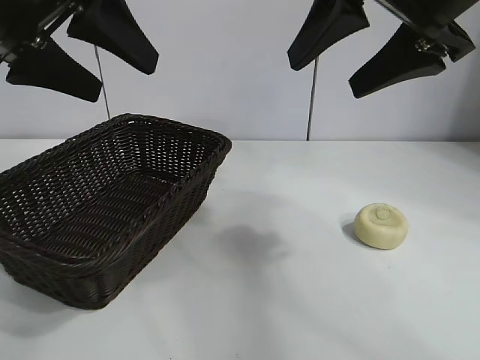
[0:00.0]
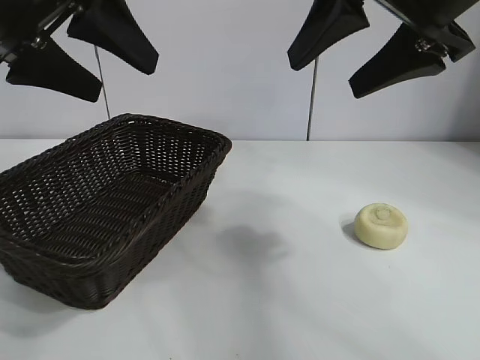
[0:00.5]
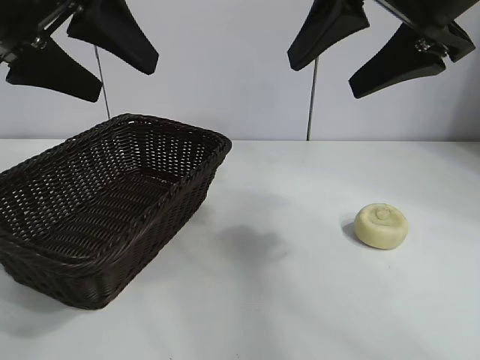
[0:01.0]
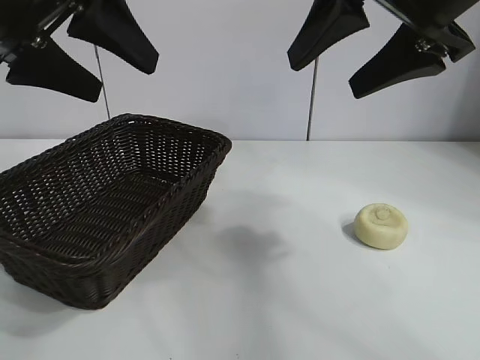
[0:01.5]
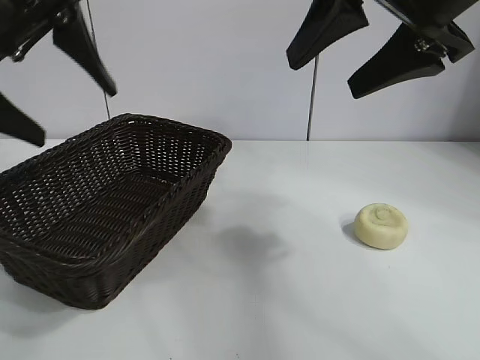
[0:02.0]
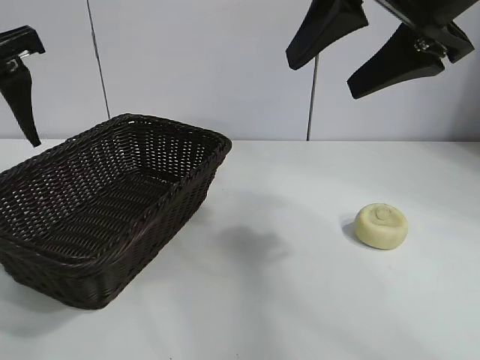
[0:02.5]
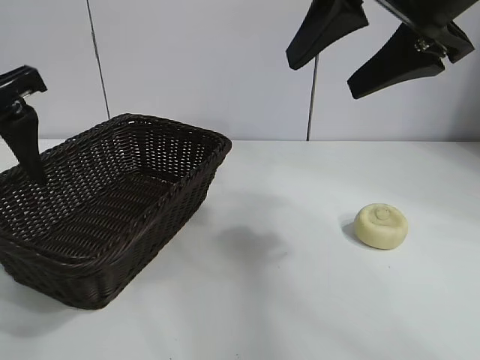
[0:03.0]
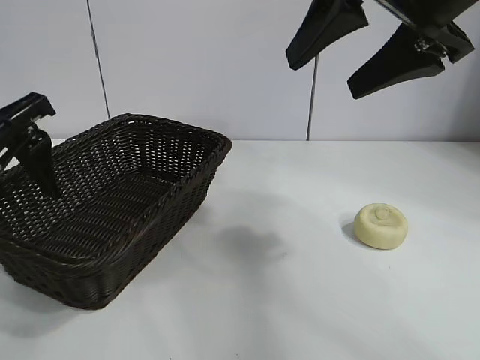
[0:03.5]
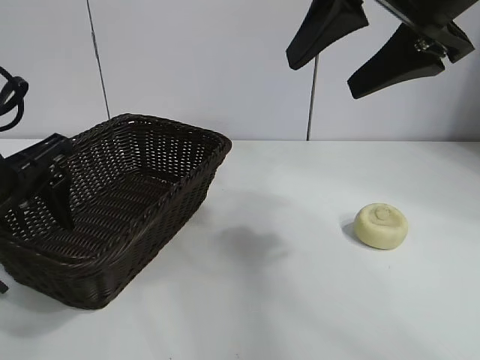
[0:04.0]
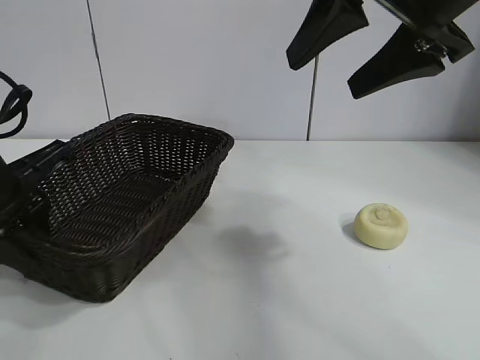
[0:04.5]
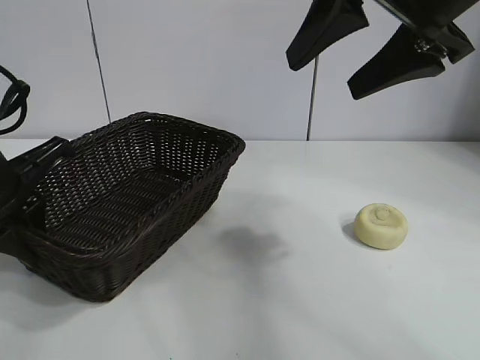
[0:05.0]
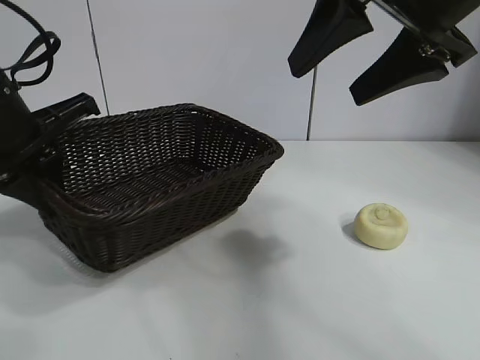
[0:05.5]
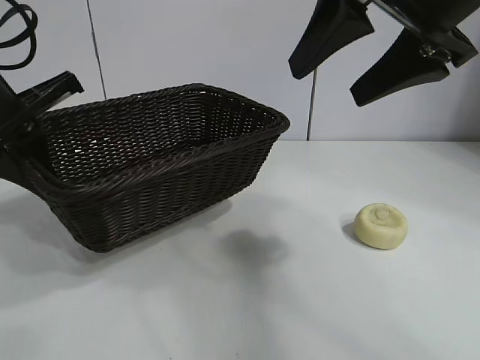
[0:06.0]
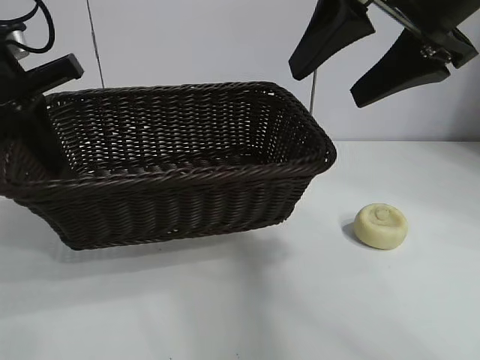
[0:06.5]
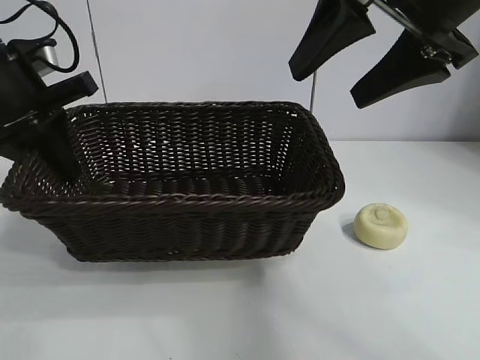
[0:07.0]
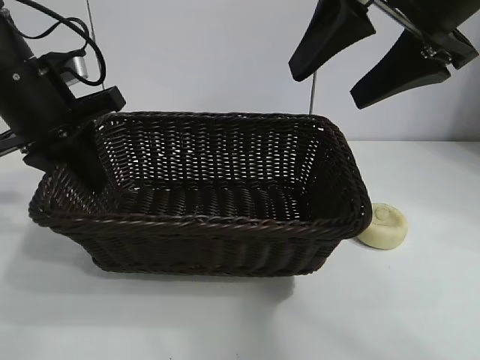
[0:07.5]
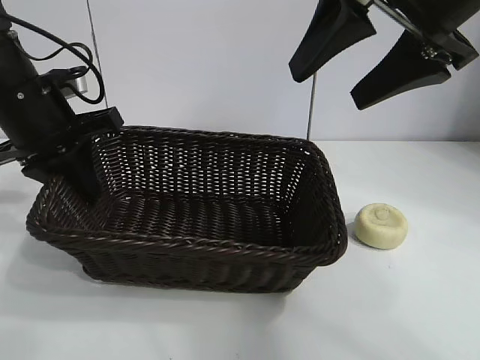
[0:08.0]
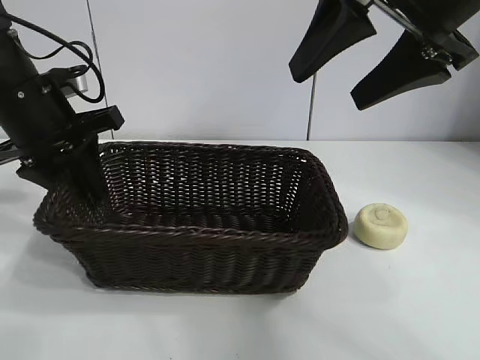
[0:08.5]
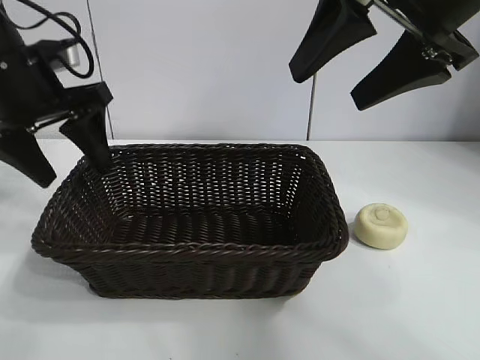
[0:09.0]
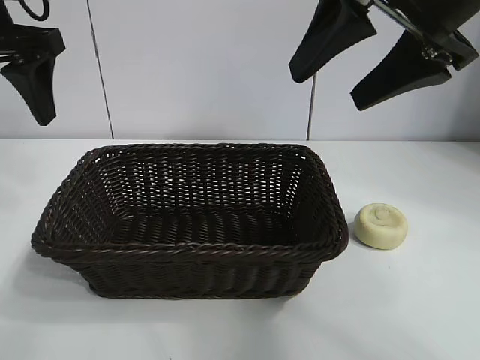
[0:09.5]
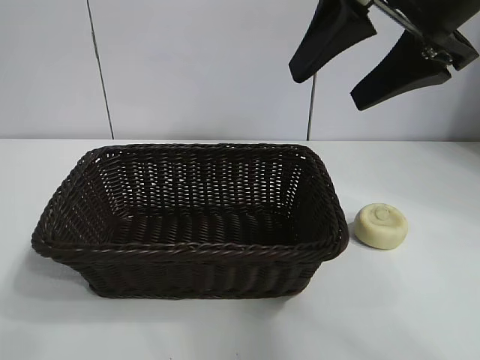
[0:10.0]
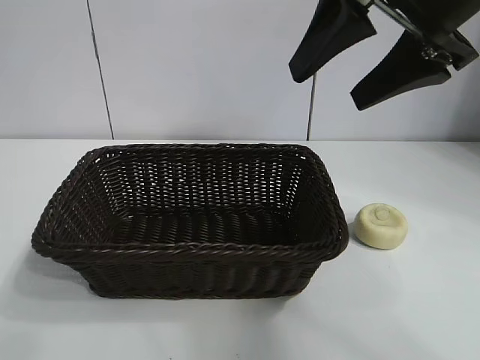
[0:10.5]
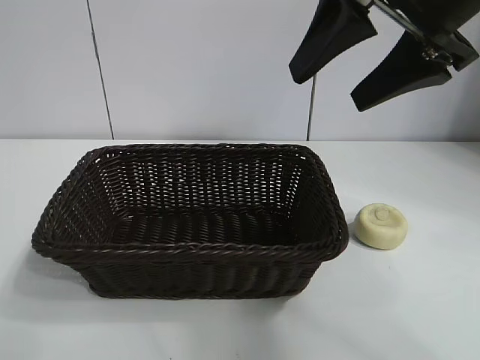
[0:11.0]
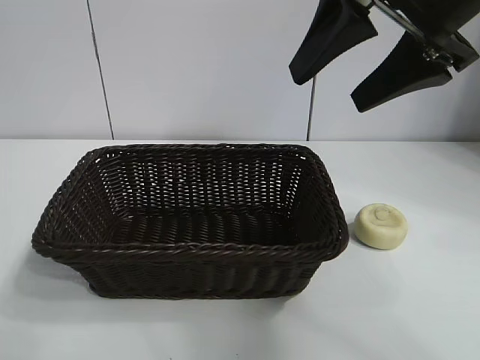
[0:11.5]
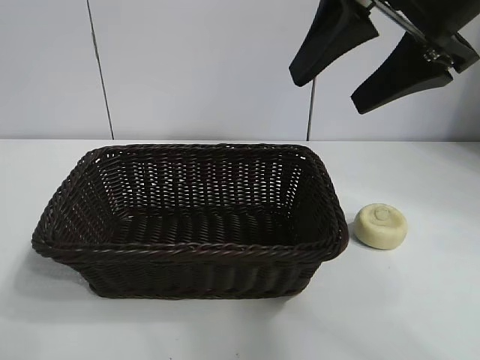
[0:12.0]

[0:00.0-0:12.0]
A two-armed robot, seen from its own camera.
Task of the whole recording: pick up the egg yolk pastry and put it into the basket.
Step, 0:02.0 to 0:04.5: Grasp the basket with left gripper.
Step, 0:05.0 to 0:08.5: Place the basket in the center of view with left gripper.

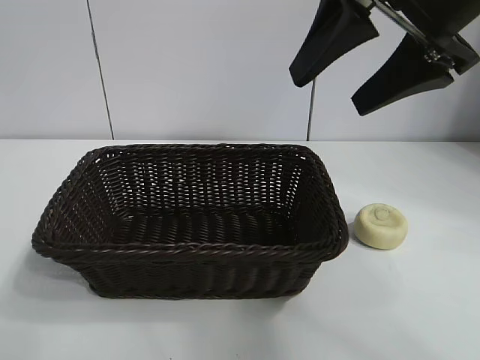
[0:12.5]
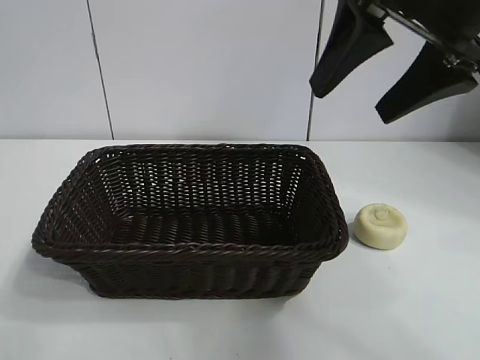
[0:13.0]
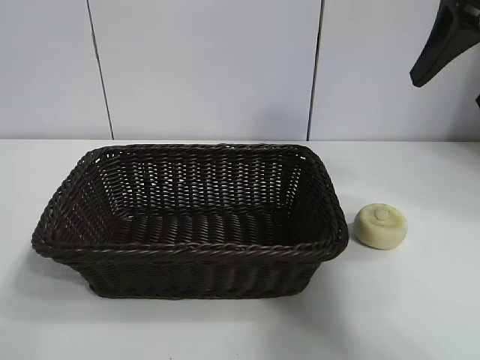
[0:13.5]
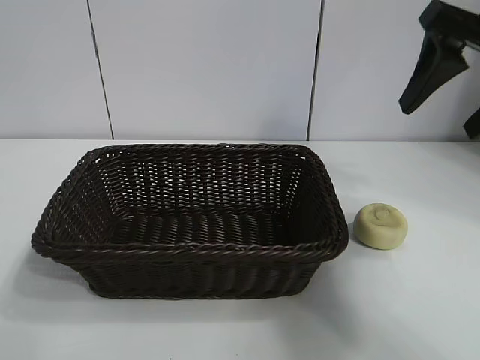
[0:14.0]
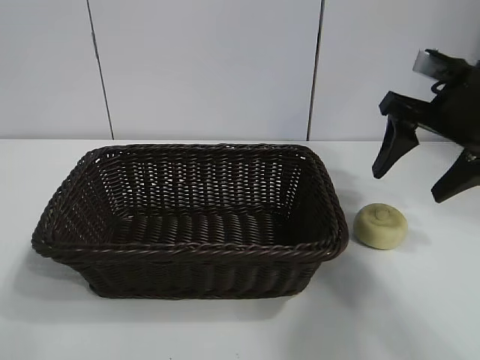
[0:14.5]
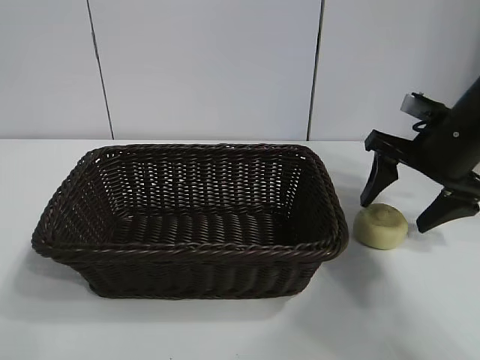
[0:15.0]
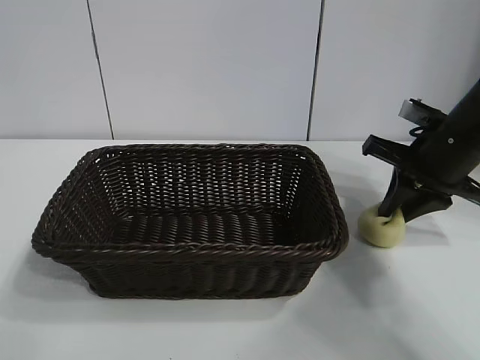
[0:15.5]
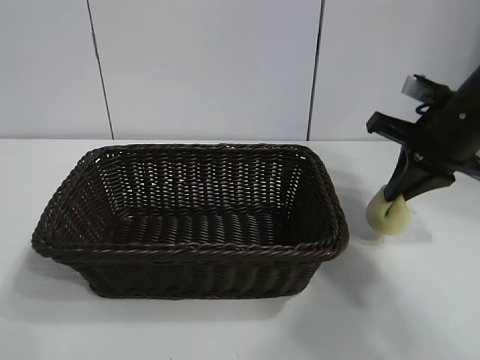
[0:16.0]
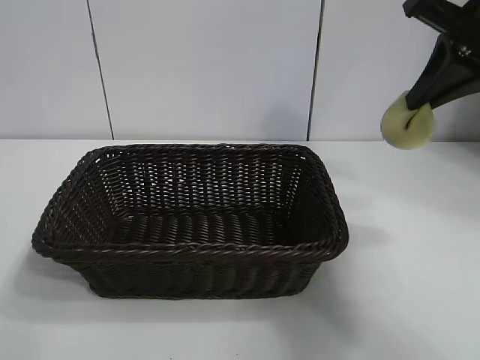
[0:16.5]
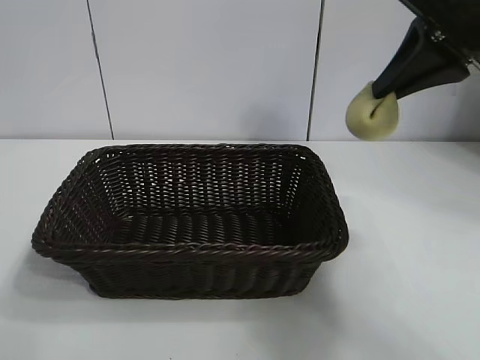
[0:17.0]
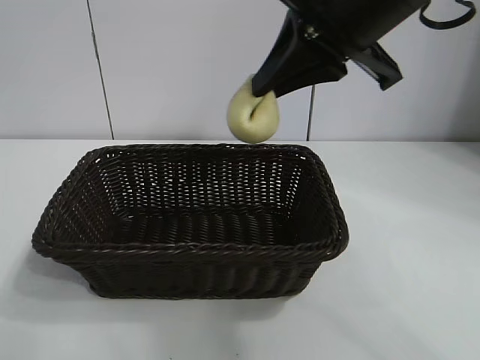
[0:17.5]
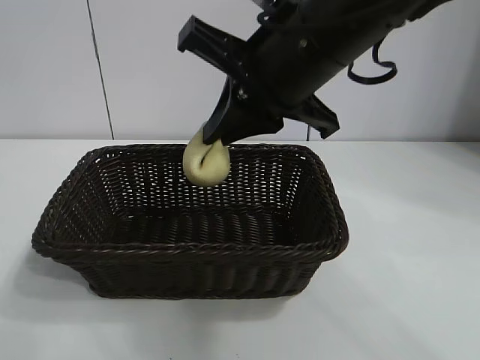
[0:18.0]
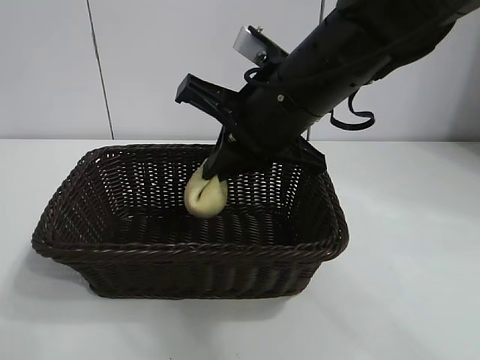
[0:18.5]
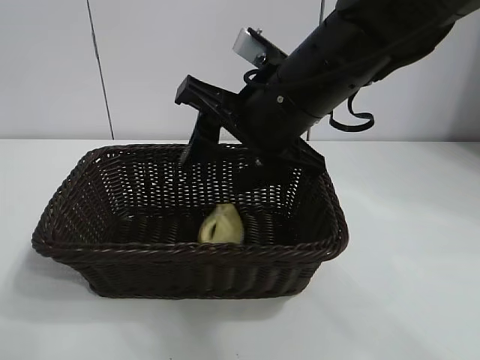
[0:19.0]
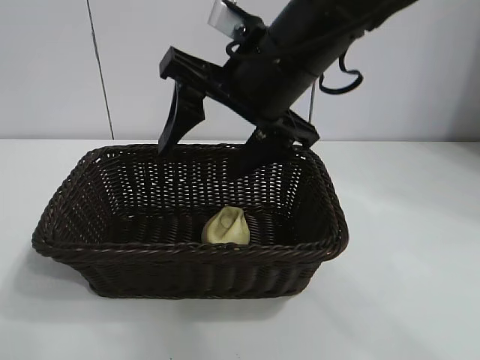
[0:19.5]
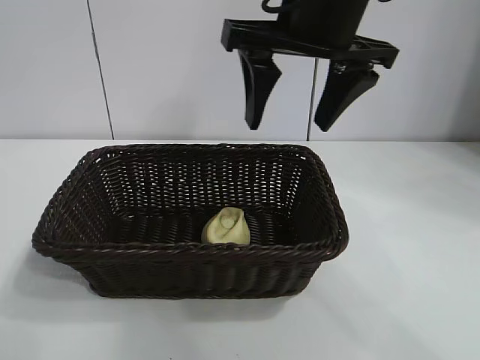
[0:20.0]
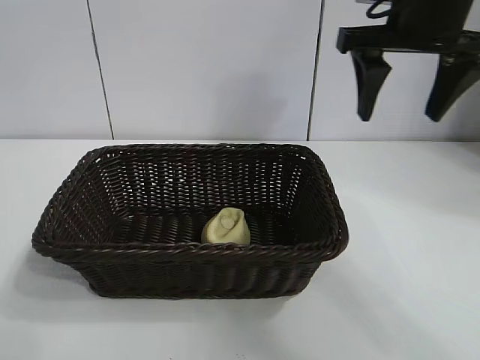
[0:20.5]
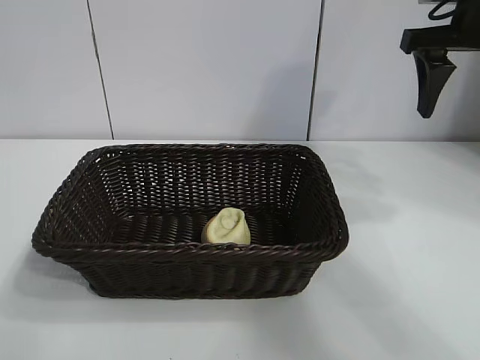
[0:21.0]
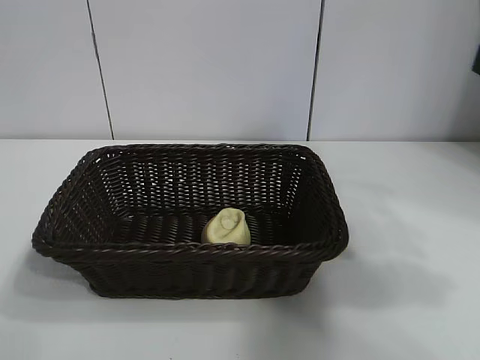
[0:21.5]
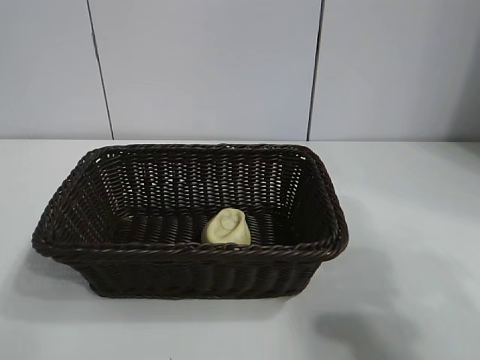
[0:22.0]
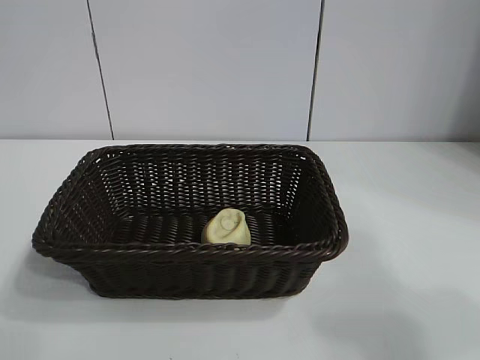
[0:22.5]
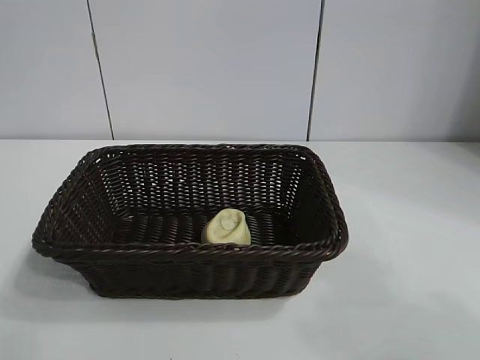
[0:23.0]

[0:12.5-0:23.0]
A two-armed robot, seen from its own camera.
Task of the whole recording: pick up the egg yolk pastry and put it into the basket.
Step, 0:12.5 to 0:15.5: Grasp egg yolk pastry with right gripper.
Step, 0:16.0 to 0:19.0: Place the egg yolk pastry in the basket with right gripper.
